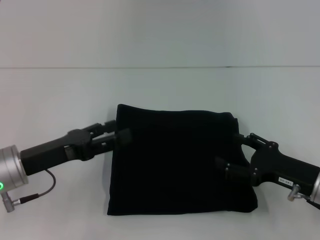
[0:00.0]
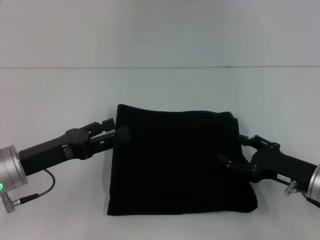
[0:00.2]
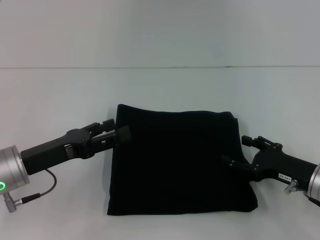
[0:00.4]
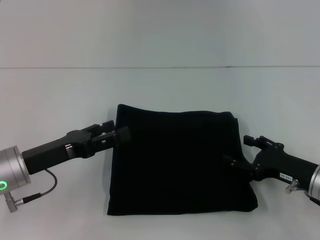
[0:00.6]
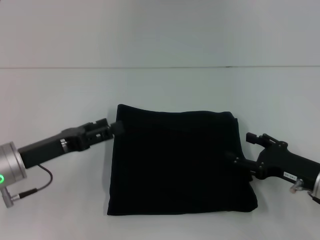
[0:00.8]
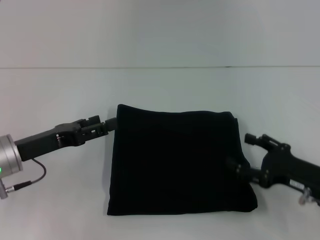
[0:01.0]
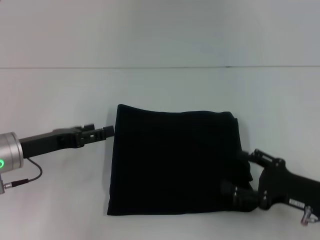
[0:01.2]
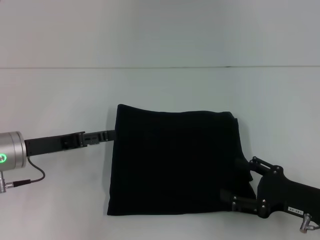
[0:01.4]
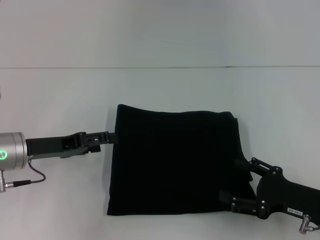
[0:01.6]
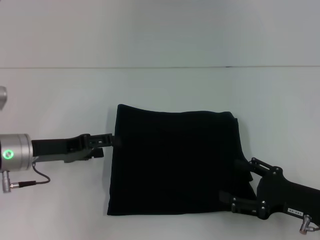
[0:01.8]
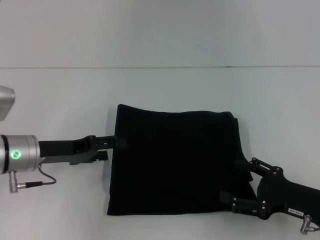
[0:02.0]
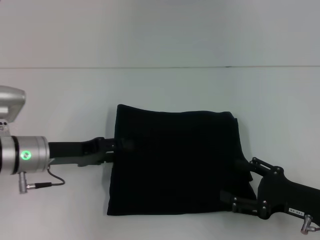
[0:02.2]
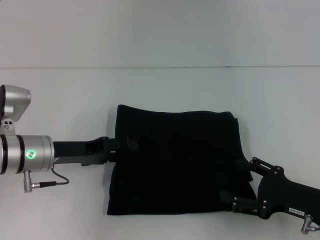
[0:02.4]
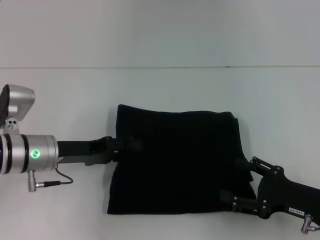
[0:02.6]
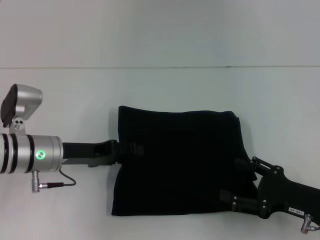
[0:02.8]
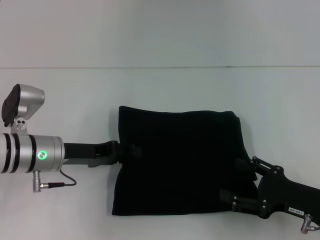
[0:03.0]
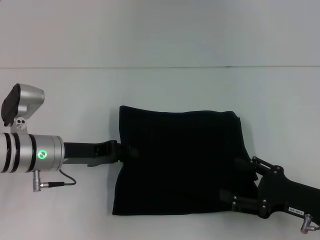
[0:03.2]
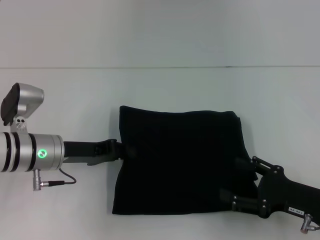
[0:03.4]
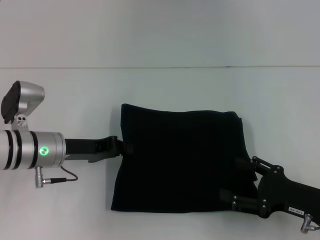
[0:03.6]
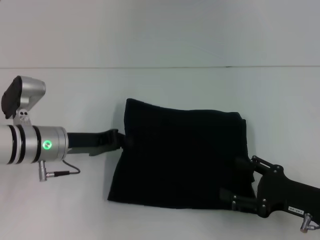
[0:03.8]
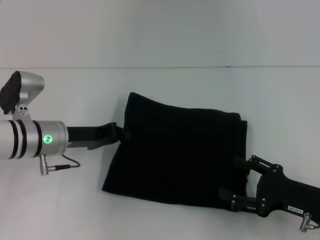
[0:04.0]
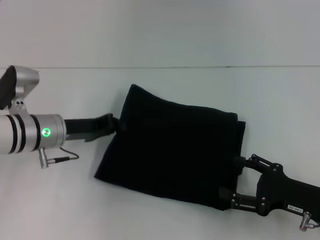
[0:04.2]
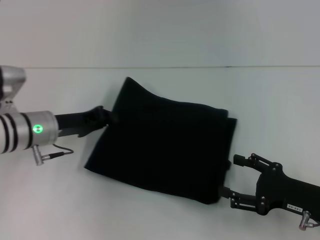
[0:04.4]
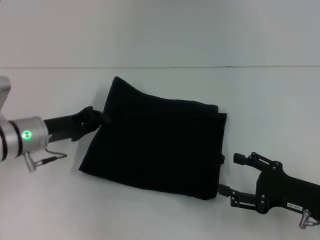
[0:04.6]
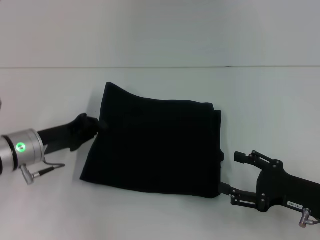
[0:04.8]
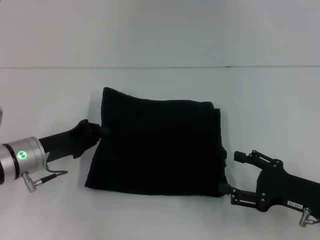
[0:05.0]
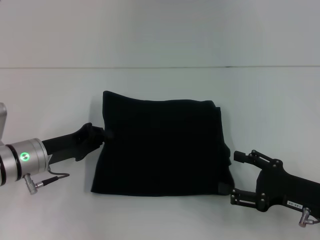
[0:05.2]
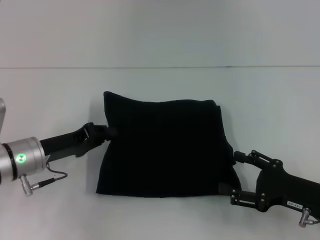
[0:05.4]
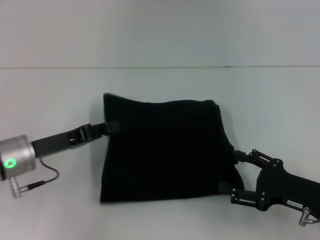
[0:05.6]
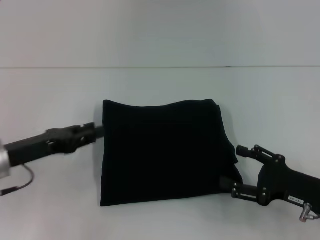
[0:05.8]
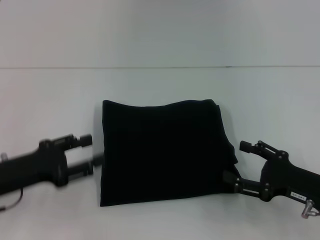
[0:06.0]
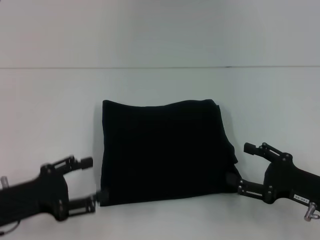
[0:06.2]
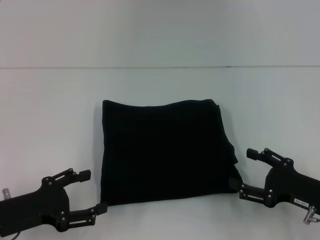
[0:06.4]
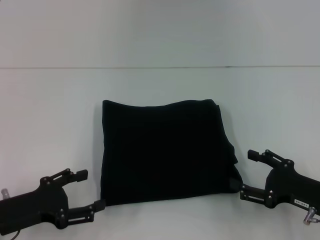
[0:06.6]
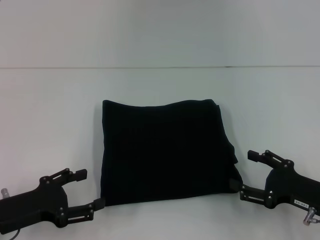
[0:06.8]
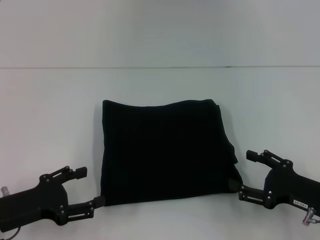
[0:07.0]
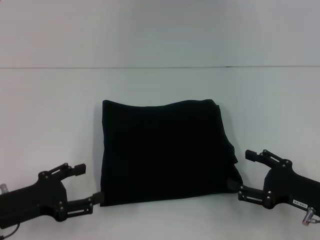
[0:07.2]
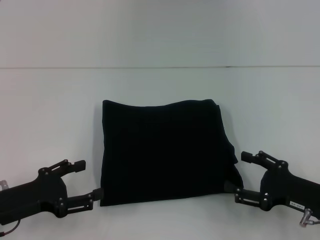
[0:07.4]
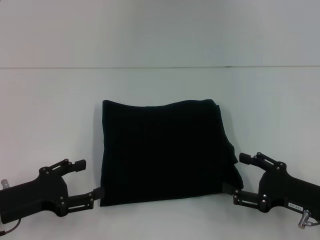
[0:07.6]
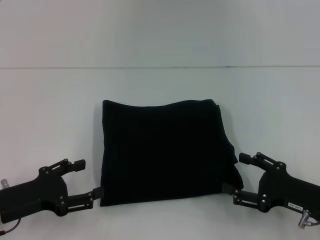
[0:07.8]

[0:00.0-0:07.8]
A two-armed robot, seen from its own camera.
0:01.6 to 0:03.2: The left gripper changes place by some 5 cm, and closes.
0:03.2 to 0:04.6: The left gripper closes.
0:04.6 to 0:06.2: The left gripper goes roughly 15 cm backward, and opens.
0:06.2 to 0:07.8: The grippers stay close to where they were, moving slightly.

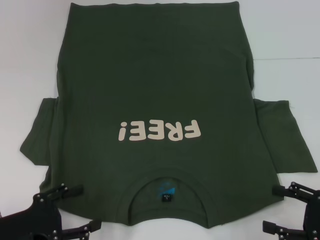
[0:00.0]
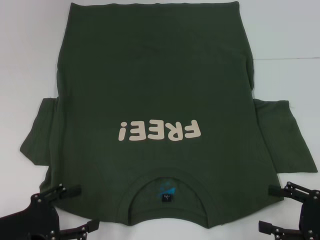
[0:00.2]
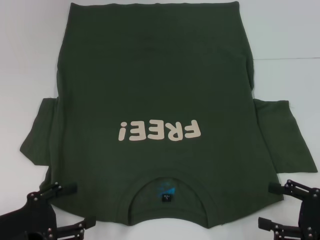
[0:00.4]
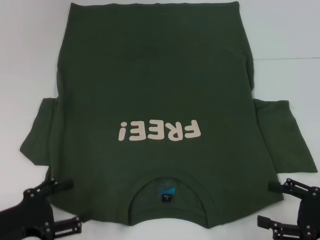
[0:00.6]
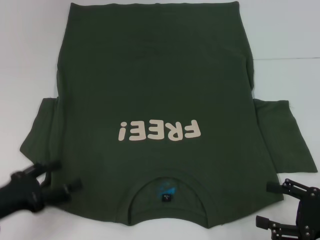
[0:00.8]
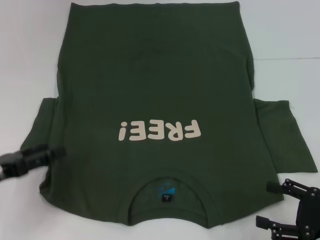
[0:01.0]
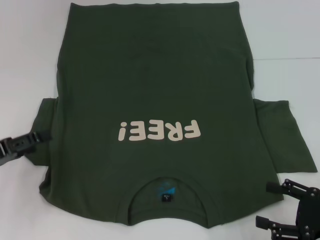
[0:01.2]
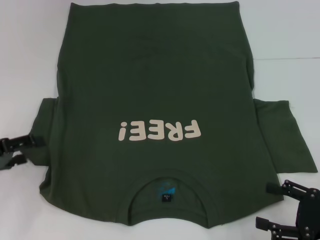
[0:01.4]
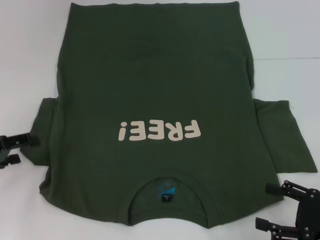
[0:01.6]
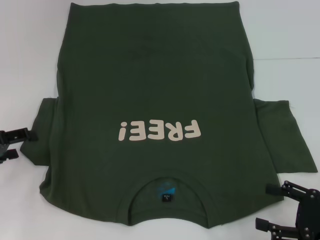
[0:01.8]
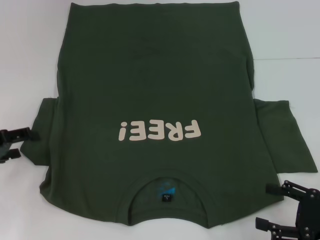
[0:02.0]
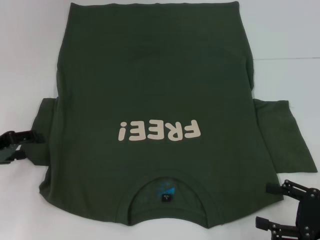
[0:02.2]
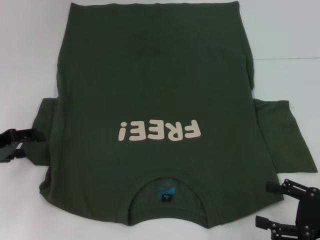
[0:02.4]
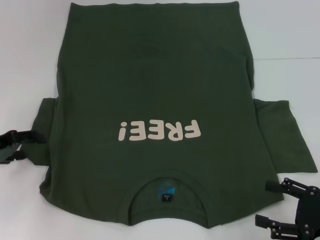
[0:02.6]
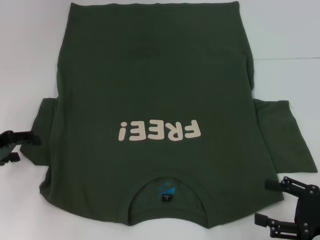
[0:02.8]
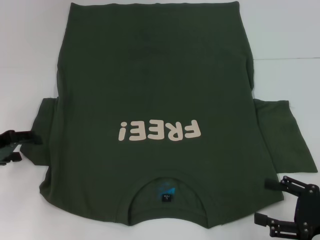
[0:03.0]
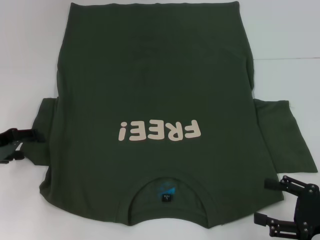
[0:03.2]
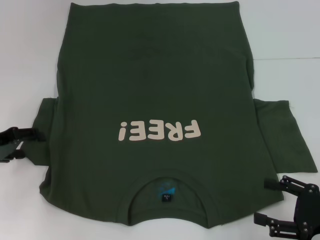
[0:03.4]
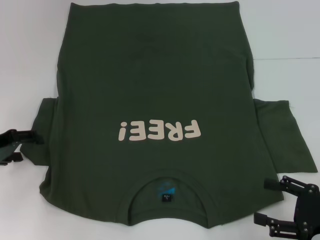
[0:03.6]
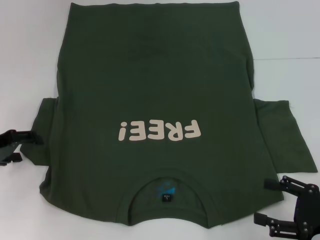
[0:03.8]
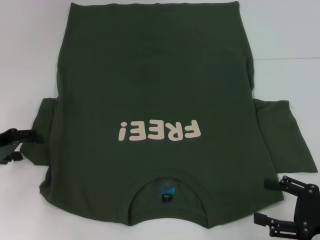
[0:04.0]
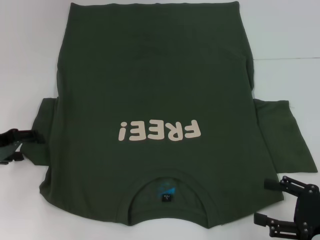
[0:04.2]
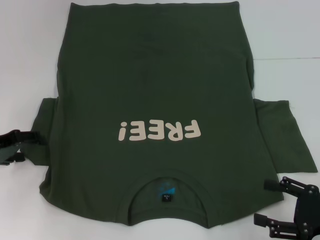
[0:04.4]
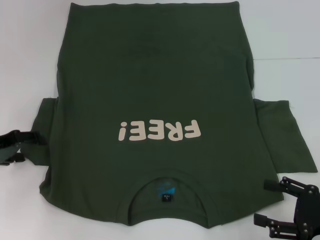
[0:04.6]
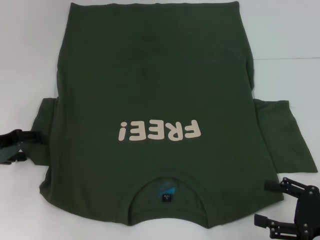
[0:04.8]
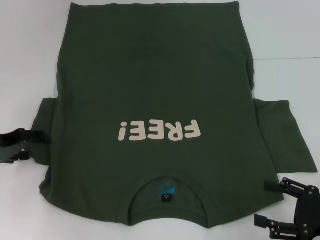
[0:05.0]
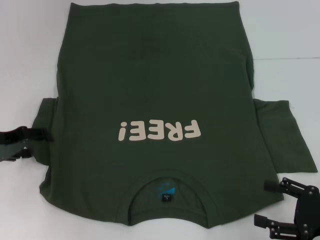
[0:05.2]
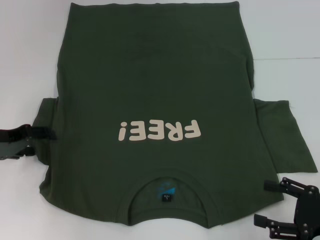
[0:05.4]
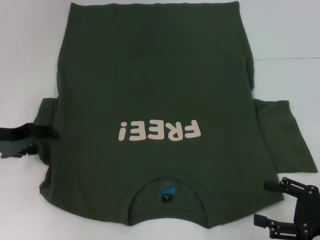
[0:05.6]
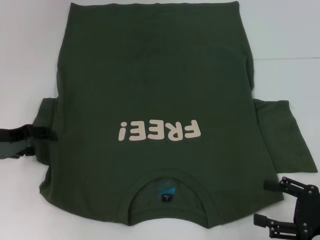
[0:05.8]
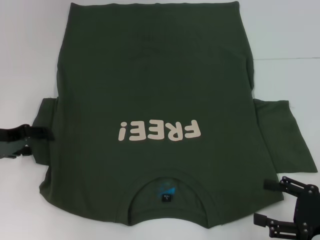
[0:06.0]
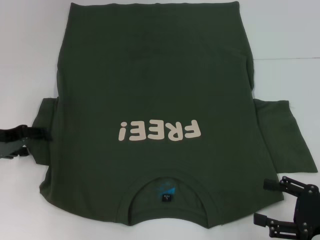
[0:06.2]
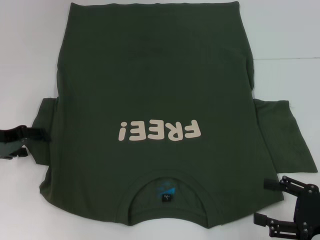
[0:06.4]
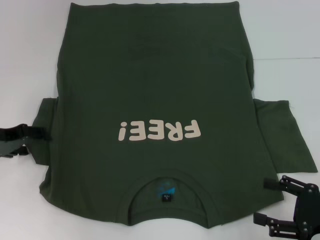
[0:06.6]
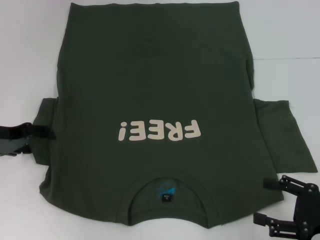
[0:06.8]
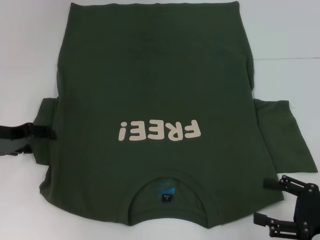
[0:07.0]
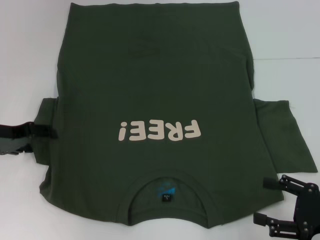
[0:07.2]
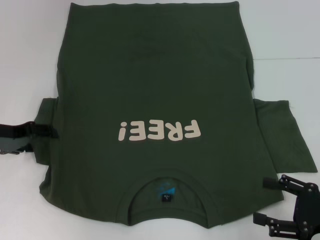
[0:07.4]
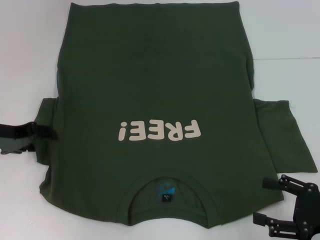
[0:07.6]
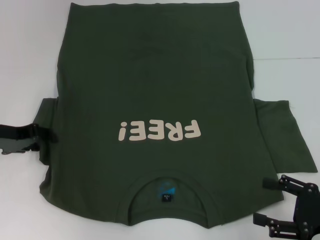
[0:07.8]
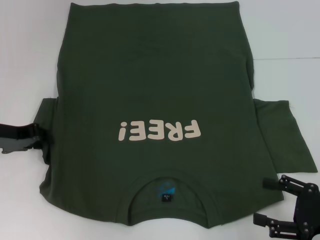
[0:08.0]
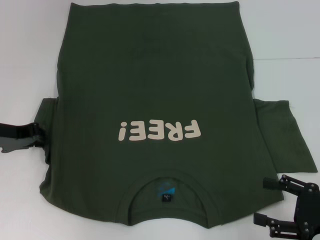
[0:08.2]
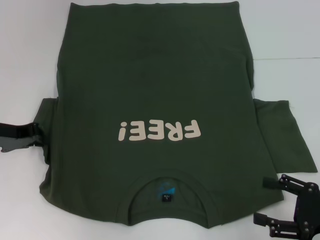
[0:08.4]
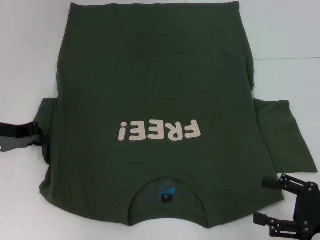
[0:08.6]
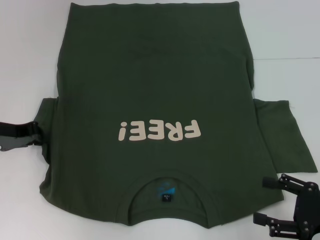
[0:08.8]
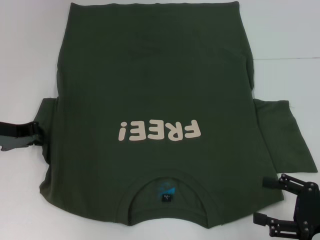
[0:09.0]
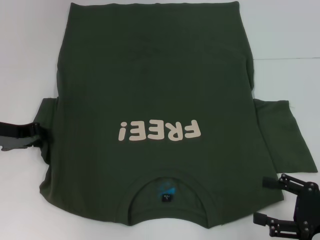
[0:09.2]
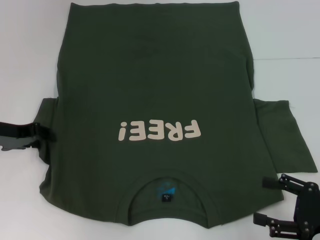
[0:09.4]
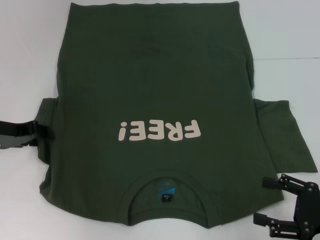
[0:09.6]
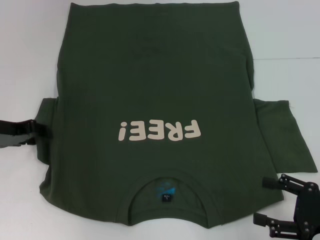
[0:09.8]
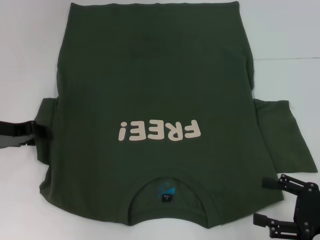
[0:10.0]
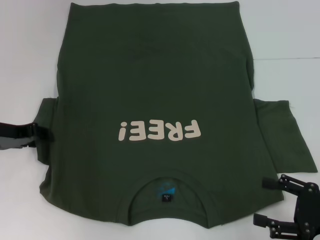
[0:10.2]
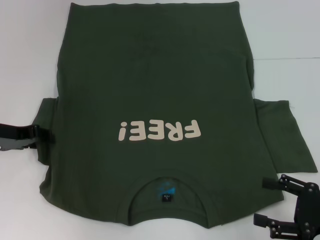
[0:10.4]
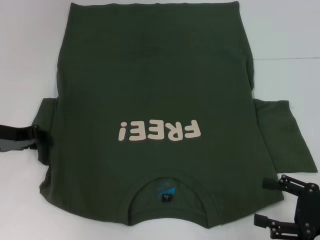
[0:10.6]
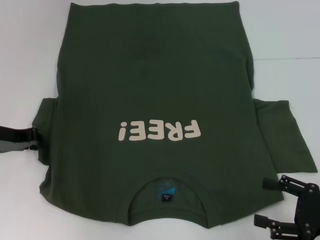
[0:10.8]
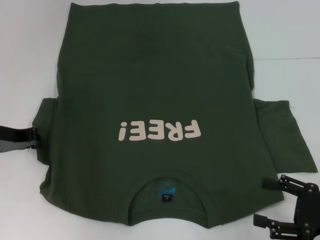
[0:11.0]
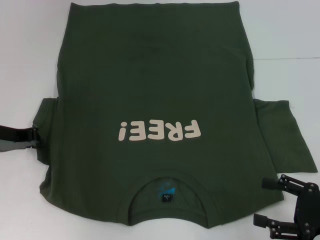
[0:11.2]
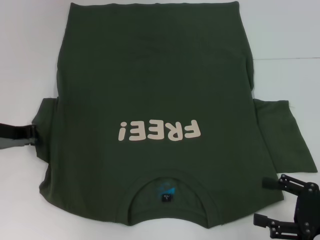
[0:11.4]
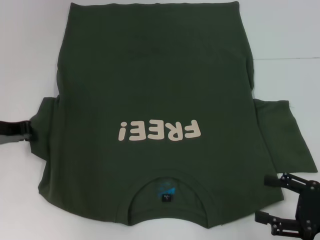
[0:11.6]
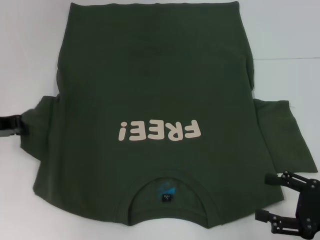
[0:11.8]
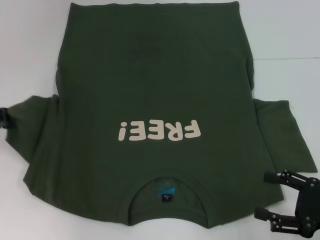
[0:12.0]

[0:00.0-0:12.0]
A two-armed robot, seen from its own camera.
0:00.0 to 0:01.6: The left gripper heads forward, to the left and upward, covering about 15 cm.
0:01.6 to 0:03.0: The grippers move only a little.
0:03.0 to 0:04.4: Both grippers stay put.
0:04.4 to 0:06.0: There are only small adjustments of the grippers.
0:06.0 to 0:07.6: Neither gripper changes place.
0:07.6 to 0:09.0: The left gripper closes.
0:09.0 to 0:10.4: The left gripper opens its fingers.
0:10.4 to 0:12.0: The left gripper closes.

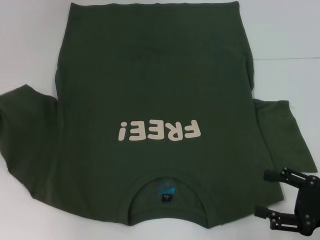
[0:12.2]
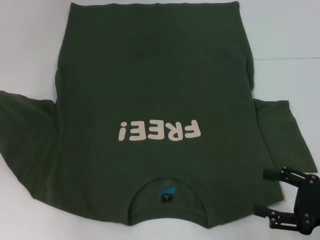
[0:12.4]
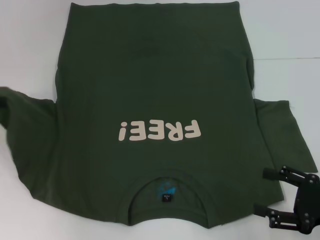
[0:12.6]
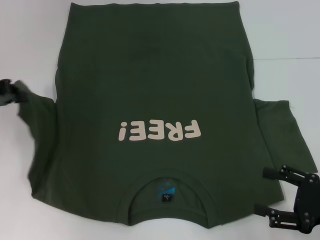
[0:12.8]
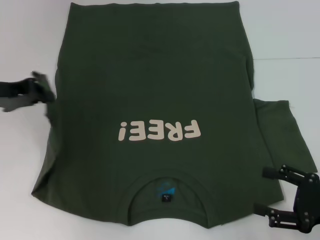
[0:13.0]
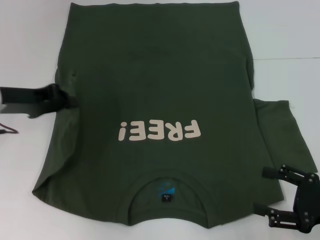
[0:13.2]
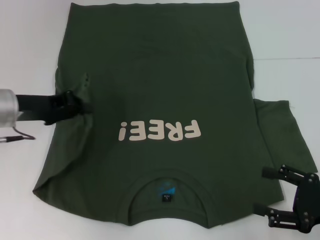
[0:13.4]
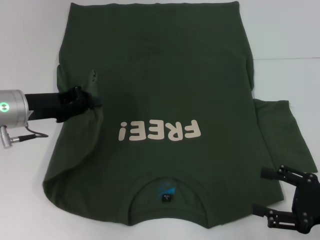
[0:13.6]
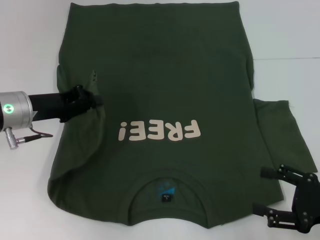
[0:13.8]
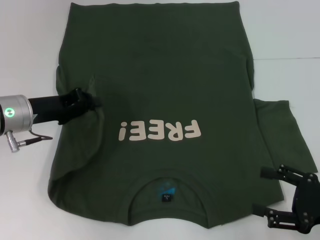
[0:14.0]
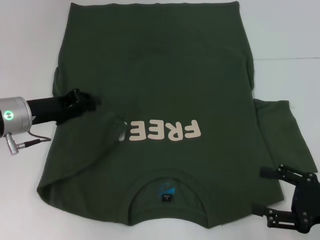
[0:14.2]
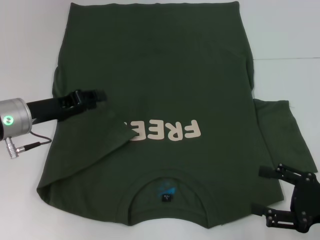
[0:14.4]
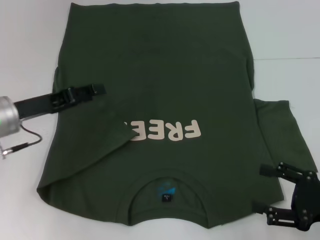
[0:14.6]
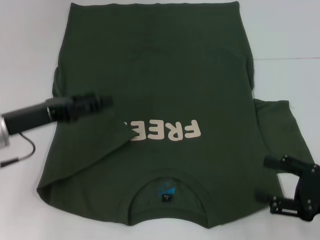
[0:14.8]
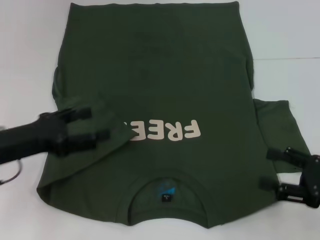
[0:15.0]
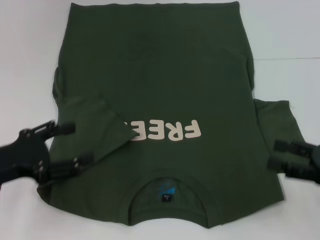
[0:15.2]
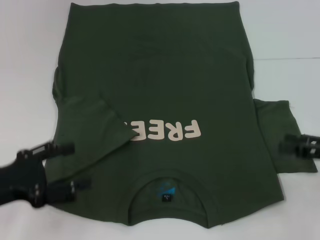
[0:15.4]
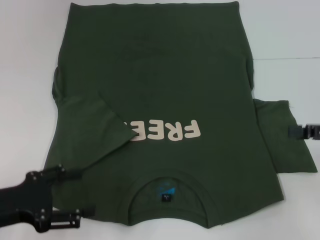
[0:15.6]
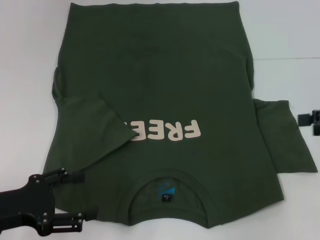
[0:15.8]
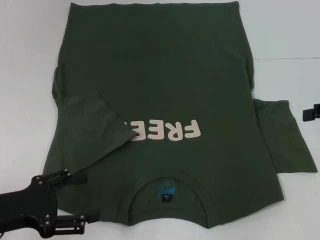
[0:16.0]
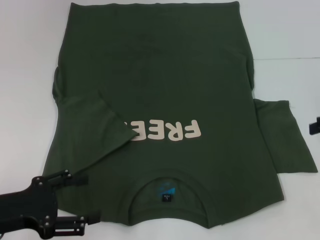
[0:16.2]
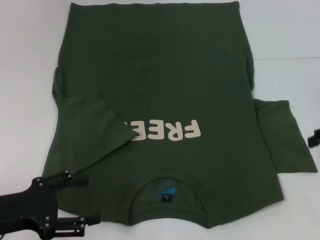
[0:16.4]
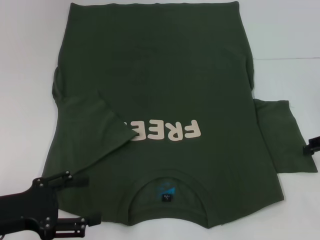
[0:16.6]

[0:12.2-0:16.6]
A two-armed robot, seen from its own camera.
Step, 0:12.2 to 0:14.6: Fold the bottom left sleeve with your left hand.
0:12.2 to 0:13.6: The left gripper travels to the right by some 10 cm.
0:13.6 to 0:15.2: The left gripper moves backward, approximately 10 cm, and opens up; the right gripper ends up about 5 cm from where it was.
0:15.2 to 0:16.6: The right gripper shifts some 10 cm forward and upward.
